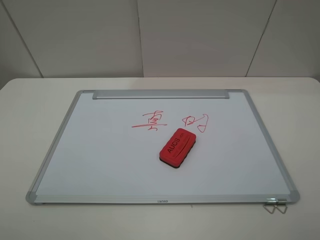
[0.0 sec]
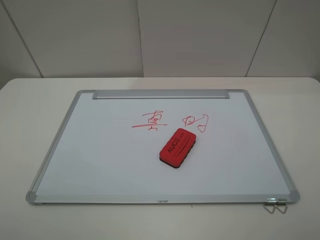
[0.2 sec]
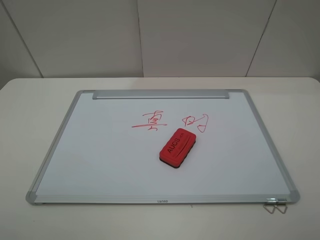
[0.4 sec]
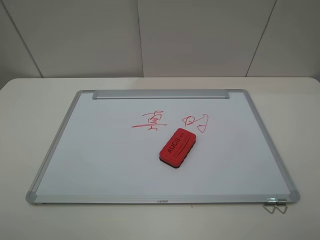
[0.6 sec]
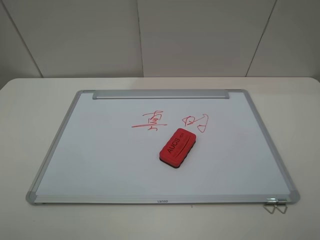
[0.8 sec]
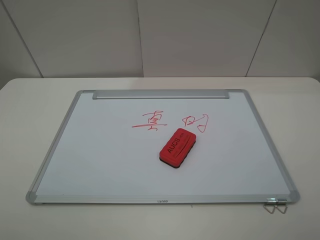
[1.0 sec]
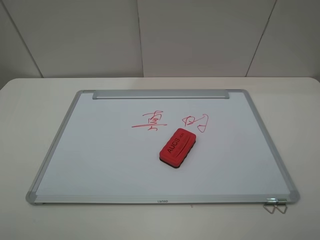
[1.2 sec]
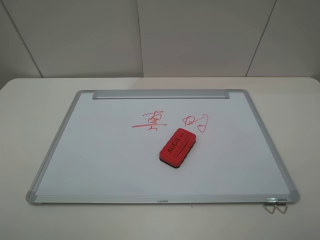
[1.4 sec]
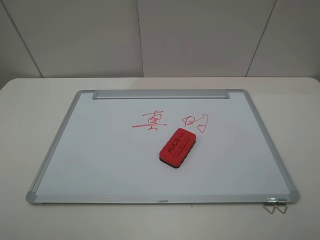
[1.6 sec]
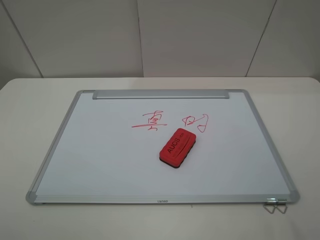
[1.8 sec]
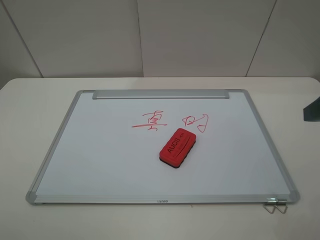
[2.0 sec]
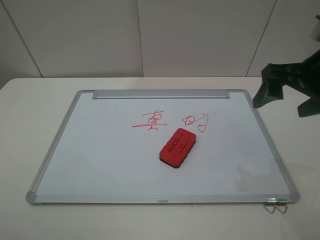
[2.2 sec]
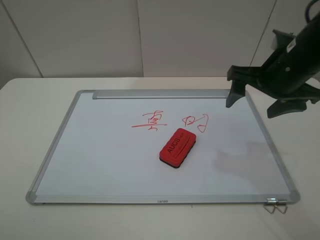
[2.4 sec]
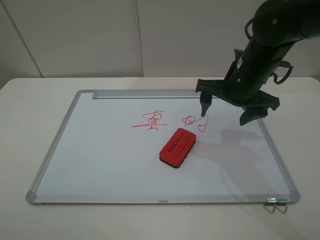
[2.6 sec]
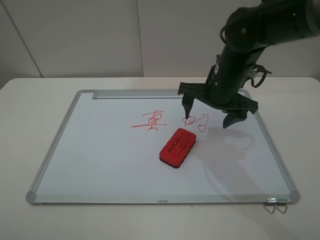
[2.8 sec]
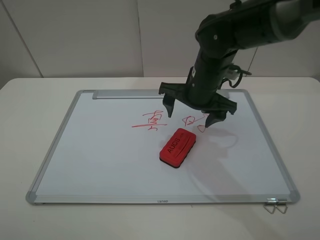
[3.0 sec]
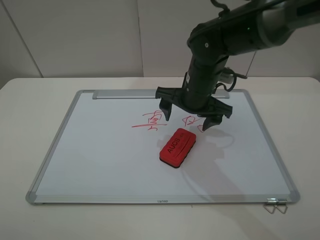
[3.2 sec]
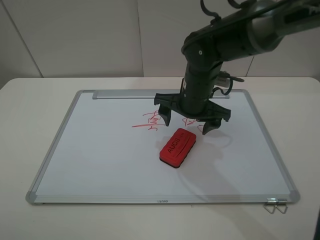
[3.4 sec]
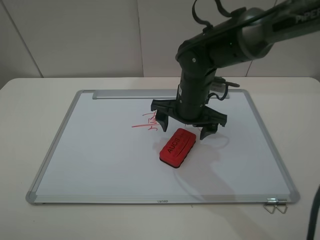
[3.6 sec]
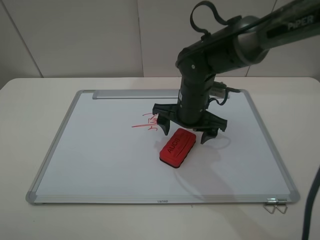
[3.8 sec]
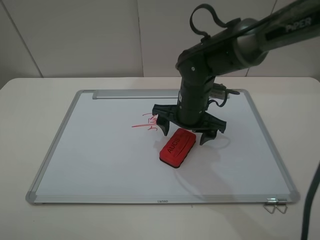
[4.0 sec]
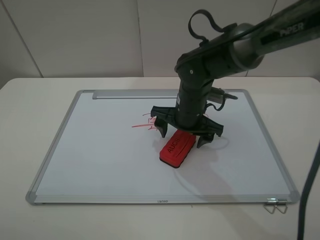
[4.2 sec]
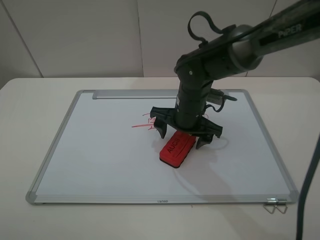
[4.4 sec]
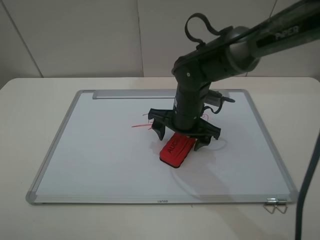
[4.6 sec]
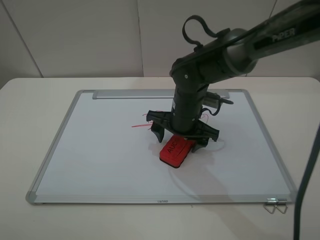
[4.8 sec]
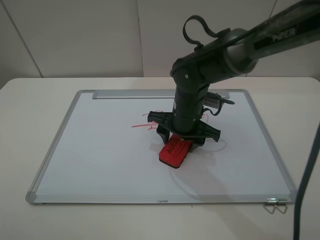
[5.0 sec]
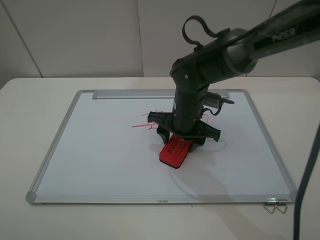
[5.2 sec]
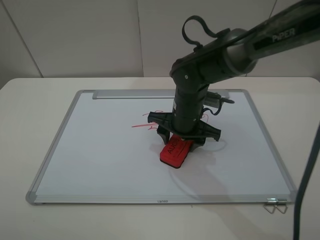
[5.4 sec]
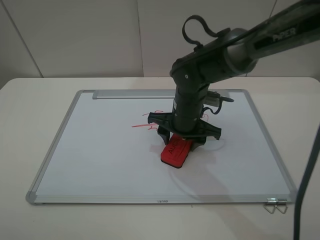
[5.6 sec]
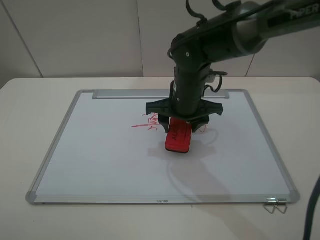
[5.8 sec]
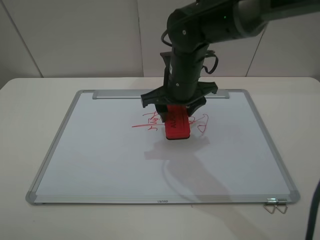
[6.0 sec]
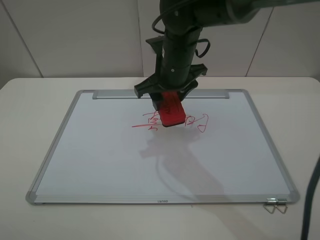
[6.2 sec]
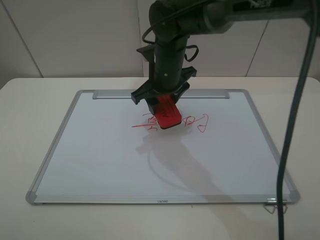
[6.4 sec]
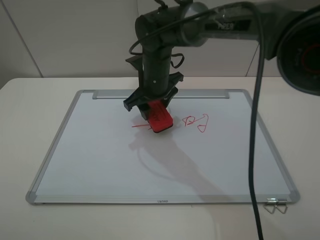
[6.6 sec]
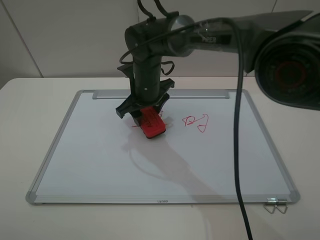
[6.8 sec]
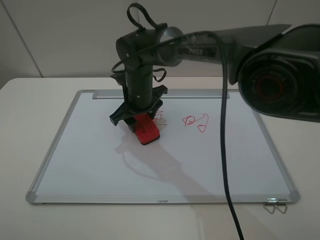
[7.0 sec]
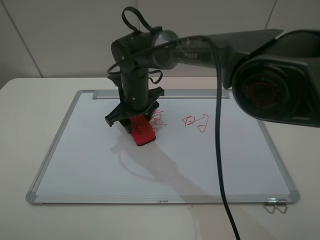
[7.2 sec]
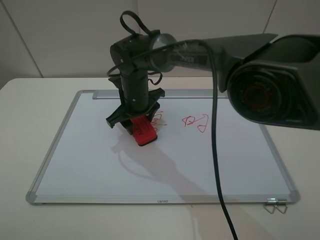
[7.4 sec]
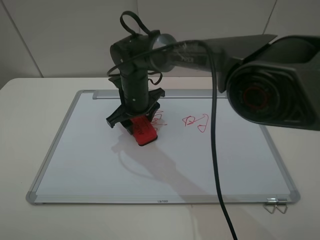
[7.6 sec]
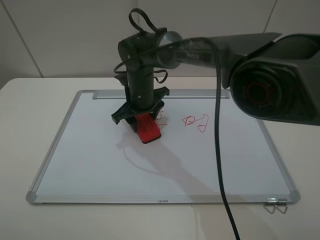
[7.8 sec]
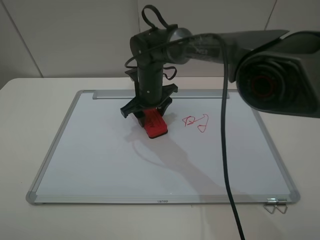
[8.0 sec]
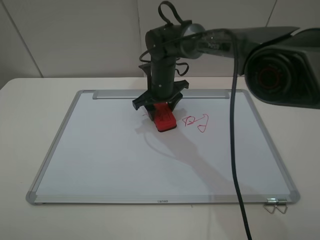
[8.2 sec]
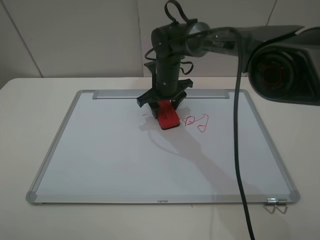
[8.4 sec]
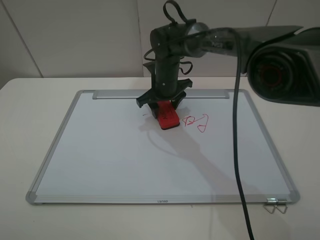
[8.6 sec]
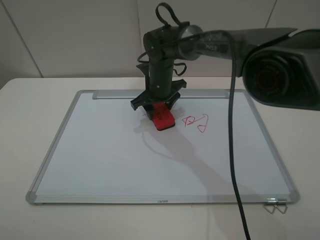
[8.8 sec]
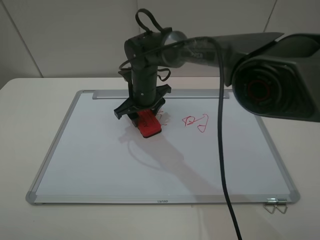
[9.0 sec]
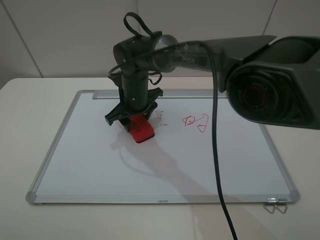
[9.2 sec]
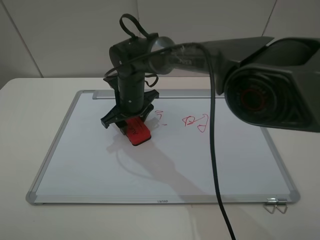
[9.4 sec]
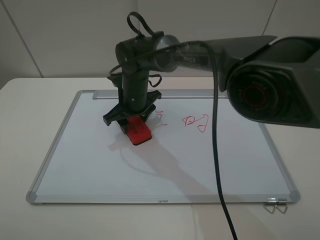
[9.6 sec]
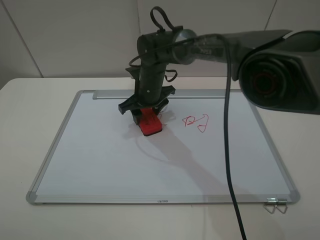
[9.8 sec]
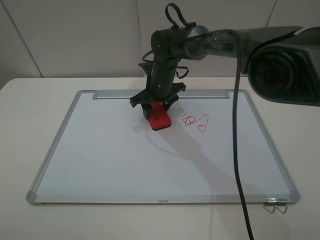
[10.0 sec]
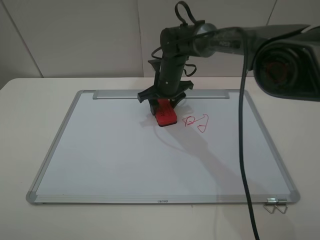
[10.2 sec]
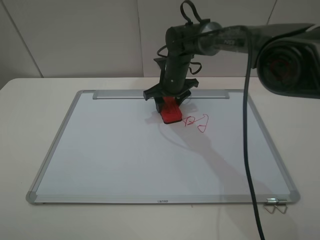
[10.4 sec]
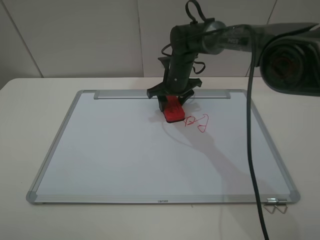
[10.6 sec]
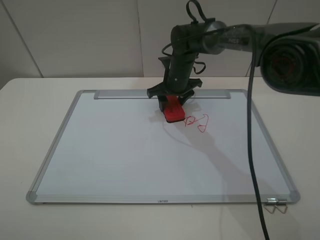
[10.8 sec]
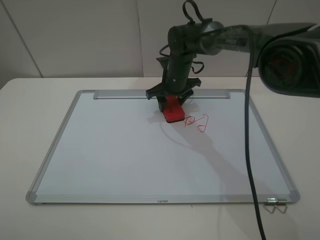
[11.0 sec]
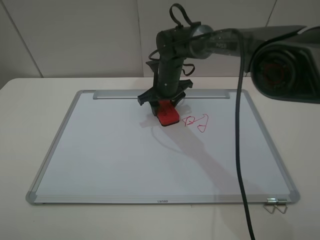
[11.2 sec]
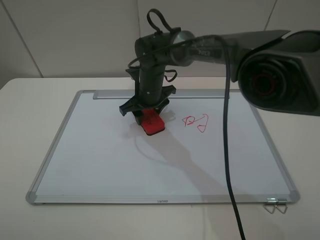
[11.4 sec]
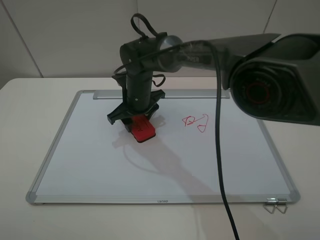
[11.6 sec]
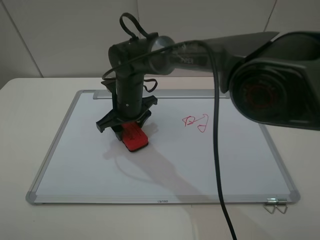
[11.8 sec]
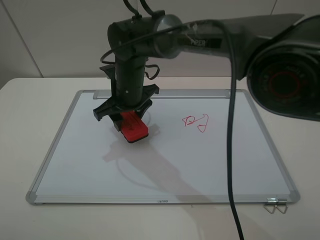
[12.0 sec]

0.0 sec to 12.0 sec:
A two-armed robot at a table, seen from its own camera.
Step, 0.0 sec to 5.0 sec: Grasp the eraser with the right gripper.
1.6 sec to 3.0 sec: The right gripper goes approximately 35 cm forward and to the left.
3.0 sec to 4.4 sec: The right gripper shifts roughly 5 cm downward.
4.4 sec to 6.0 sec: The right gripper travels upward by about 5 cm, and closes.
6.0 sec to 7.6 sec: The right gripper goes approximately 10 cm to the left and downward.
7.6 sec to 9.0 sec: The right gripper goes to the right and returns, some 10 cm each way.
9.0 sec to 10.4 sec: The right gripper is displaced to the right and forward by approximately 10 cm.
10.4 sec to 12.0 sec: The right gripper goes about 15 cm to the left, backward and upward.

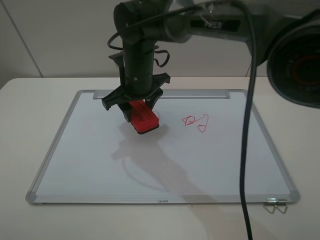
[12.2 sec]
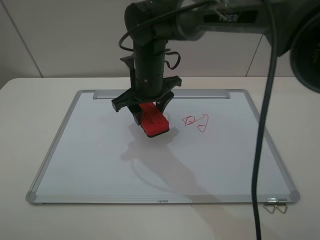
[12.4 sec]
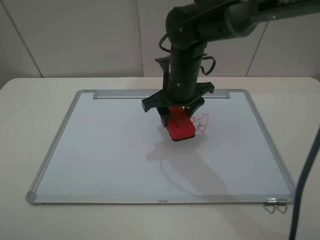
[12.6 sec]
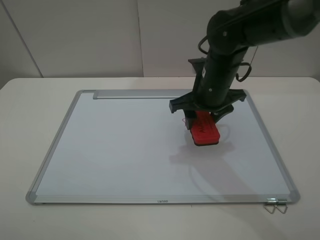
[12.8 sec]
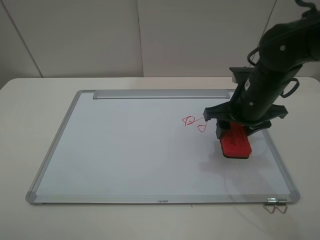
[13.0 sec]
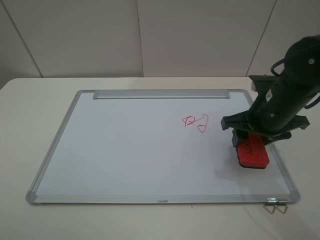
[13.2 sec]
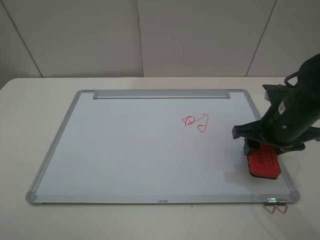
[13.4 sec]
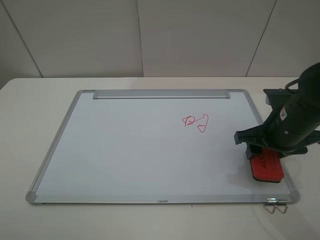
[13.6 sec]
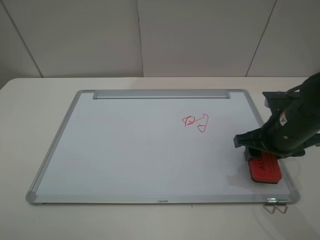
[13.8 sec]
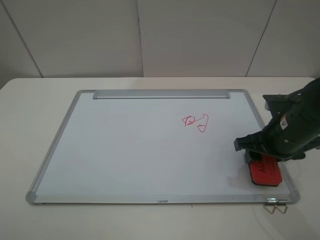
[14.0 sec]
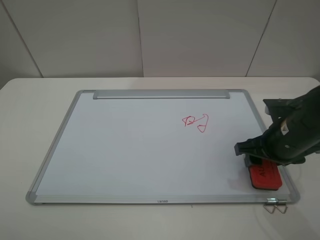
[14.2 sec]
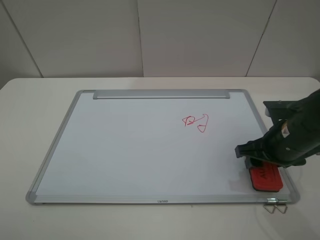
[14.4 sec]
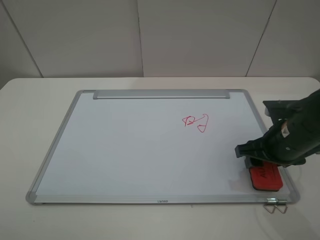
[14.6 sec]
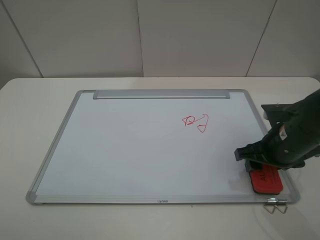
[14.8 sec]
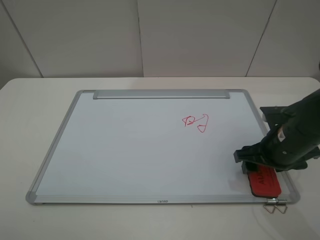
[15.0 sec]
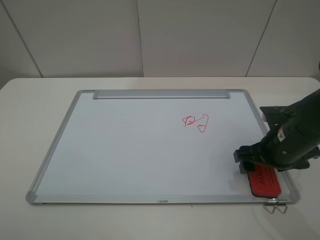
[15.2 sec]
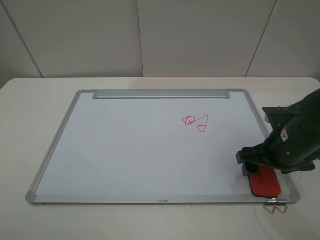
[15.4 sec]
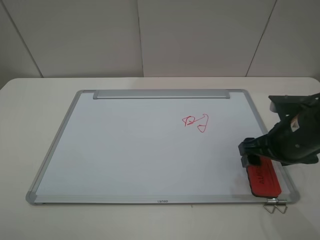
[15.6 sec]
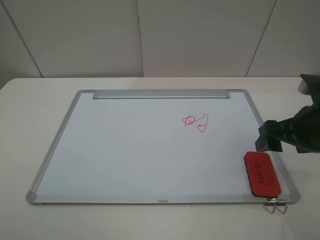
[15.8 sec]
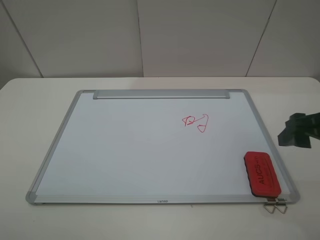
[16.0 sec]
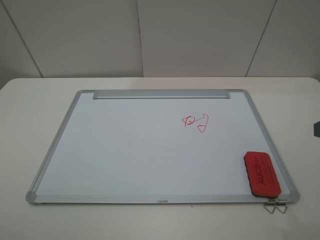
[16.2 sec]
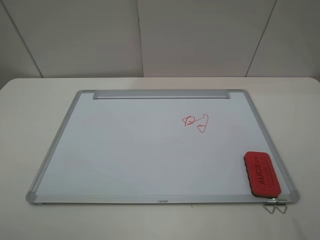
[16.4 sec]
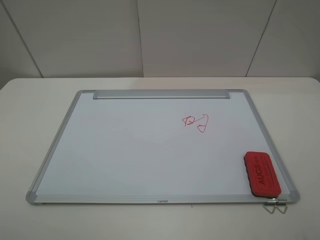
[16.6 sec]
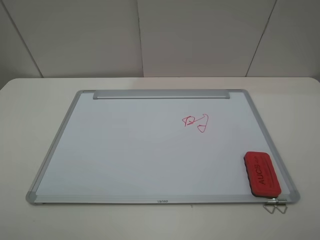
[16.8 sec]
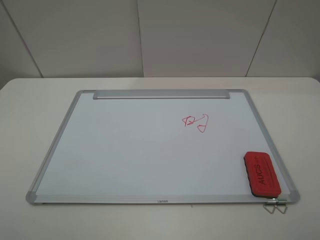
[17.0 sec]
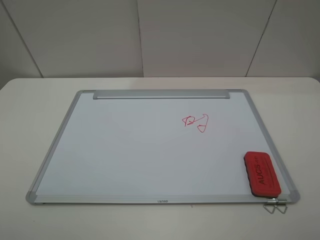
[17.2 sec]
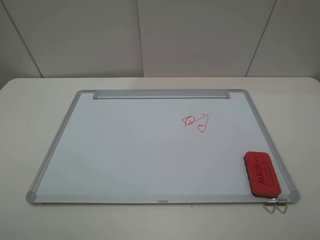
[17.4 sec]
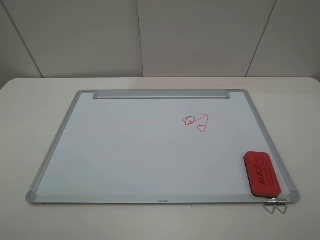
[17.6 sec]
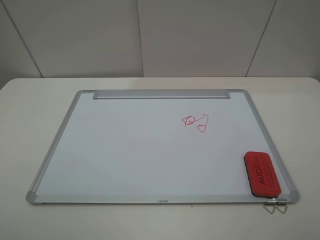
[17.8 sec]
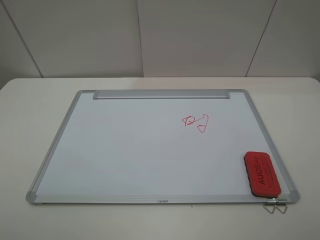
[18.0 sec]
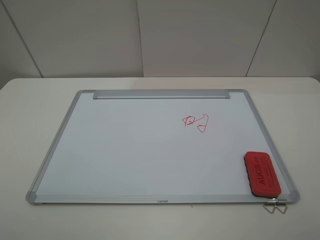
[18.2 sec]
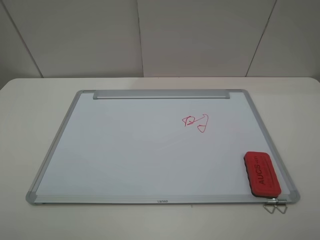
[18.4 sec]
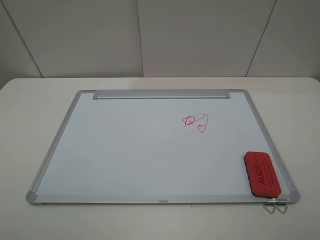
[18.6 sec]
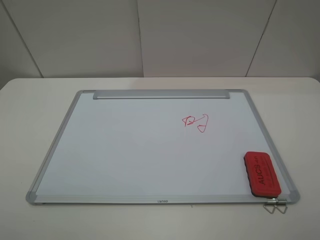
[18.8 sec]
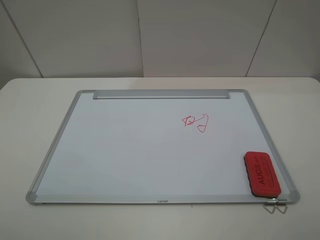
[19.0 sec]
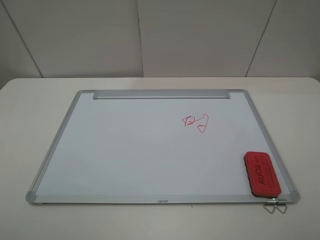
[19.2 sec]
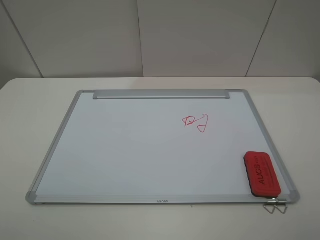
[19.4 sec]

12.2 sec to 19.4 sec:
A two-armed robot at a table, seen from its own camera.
Step, 12.4 sec to 15.6 sec: Place the eraser with the right gripper.
12.2 sec to 13.6 sec: The right gripper shifts roughly 30 cm to the right and backward.
13.6 sec to 15.0 sec: The right gripper opens up.
15.0 sec to 16.6 sec: The right gripper shifts roughly 25 cm backward and upward.
18.0 sec to 19.4 sec: Both grippers stay about where they are.
